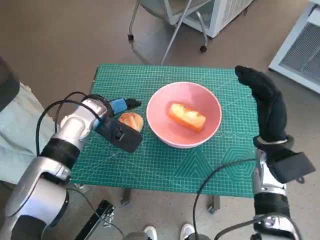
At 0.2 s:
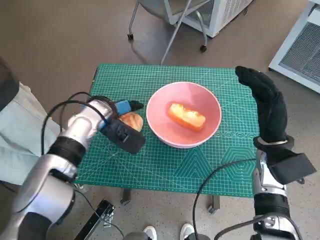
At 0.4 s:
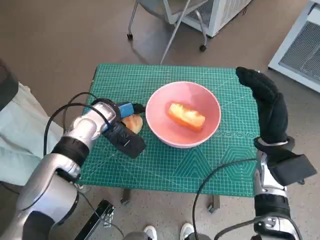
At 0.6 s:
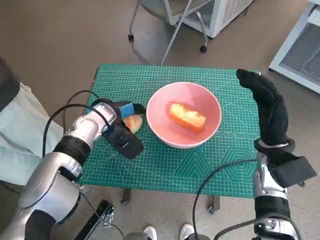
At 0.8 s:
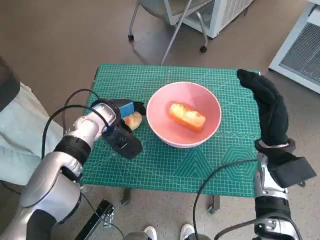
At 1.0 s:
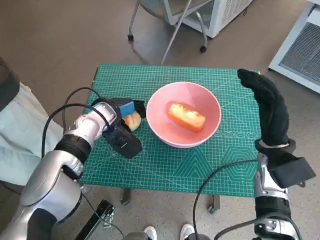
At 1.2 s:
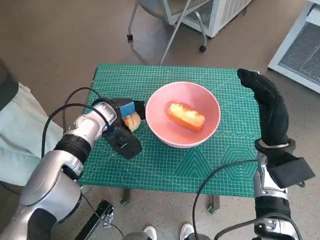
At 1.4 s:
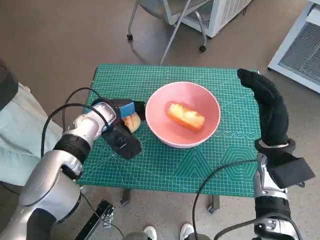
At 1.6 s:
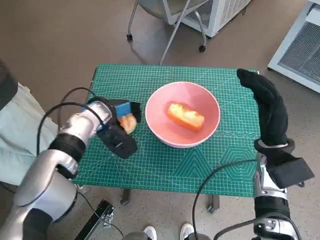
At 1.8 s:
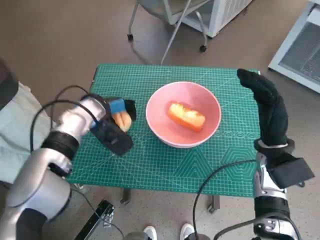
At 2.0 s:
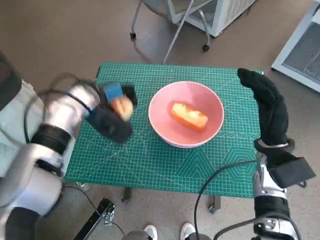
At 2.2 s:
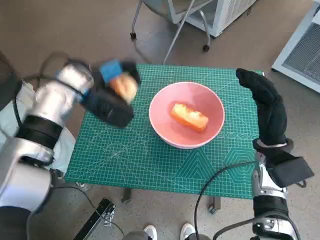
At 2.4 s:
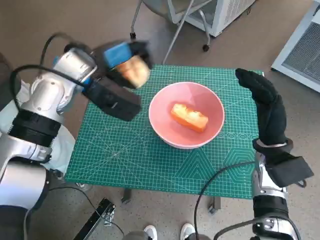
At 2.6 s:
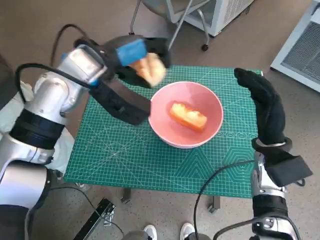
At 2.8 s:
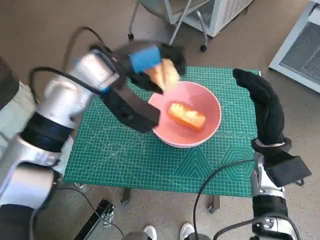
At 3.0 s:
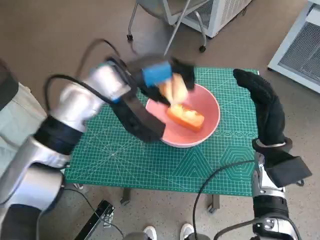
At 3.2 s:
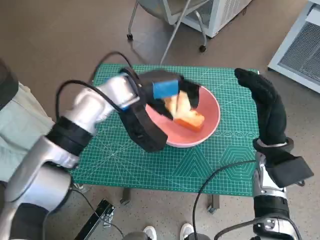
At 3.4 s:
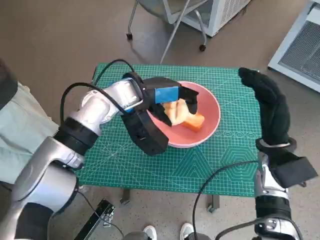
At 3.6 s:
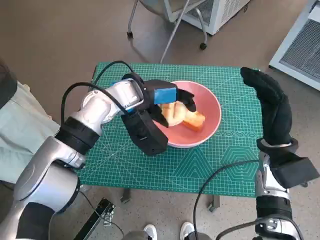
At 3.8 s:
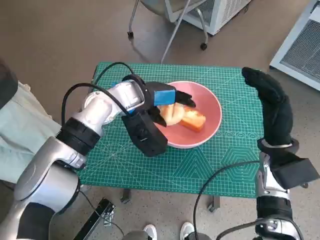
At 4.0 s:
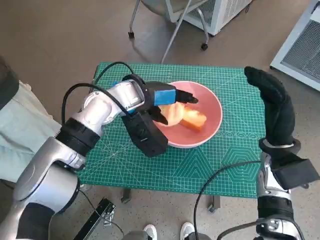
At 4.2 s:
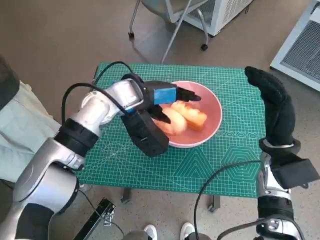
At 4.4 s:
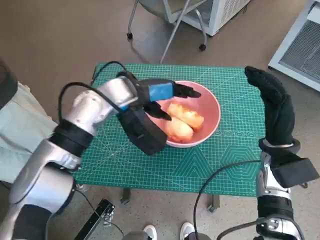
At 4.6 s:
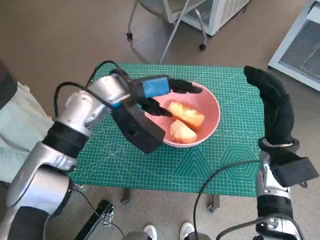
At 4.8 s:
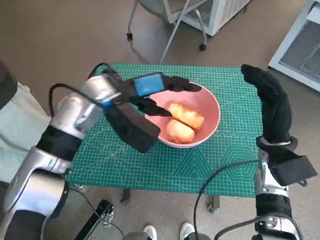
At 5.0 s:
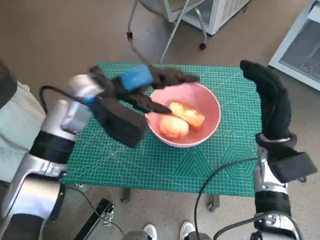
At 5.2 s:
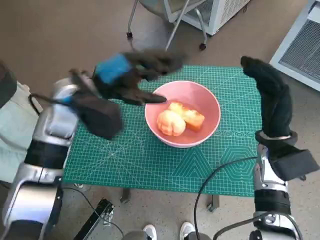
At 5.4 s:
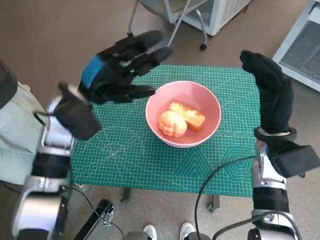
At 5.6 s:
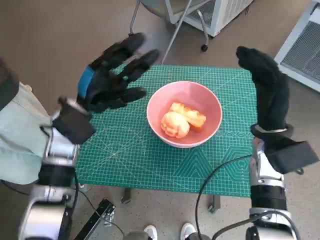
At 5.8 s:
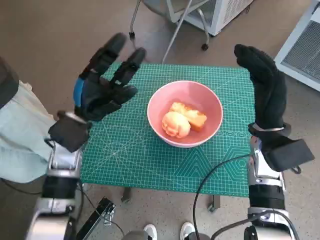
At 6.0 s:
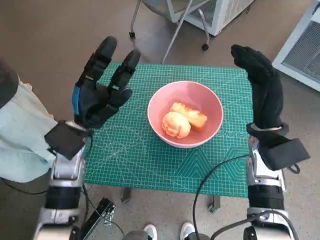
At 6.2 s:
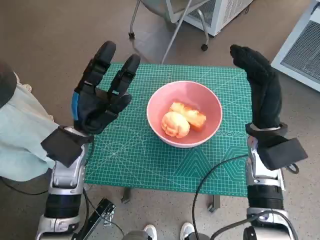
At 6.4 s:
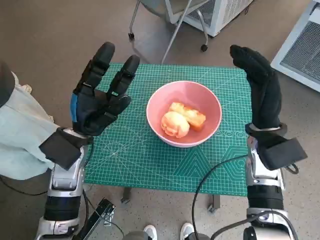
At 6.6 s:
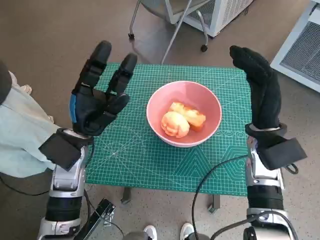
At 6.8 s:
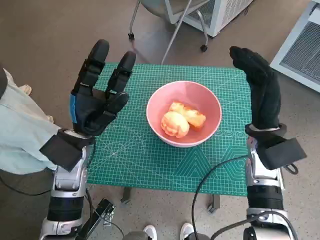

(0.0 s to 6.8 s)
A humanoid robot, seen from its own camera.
Task of the whole recording: Push the bowl to the center of the table and put the bread into the bowl.
Step, 1.2 s - 4.4 s: Place the round bread in pink bowl with left hand.
0.0 s - 1.4 s: There are only small adjustments of the hands.
1.4 s - 2.8 s: The left hand moves upward, approximately 15 cm.
2.8 s - 4.0 s: The left hand heads downward, covering about 5 cm.
4.0 s - 5.4 s: The left hand moves to the left, some 10 cm.
5.4 s - 6.8 s: The left hand heads downward and backward, covering some 10 cm.

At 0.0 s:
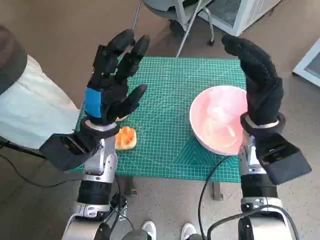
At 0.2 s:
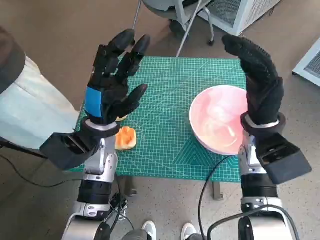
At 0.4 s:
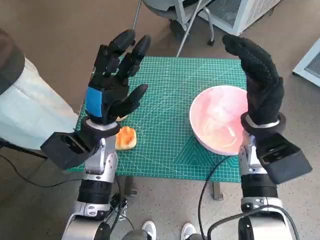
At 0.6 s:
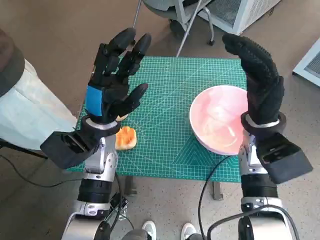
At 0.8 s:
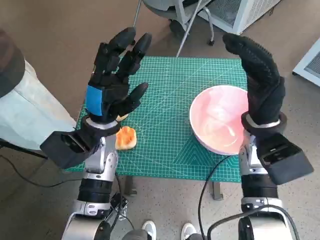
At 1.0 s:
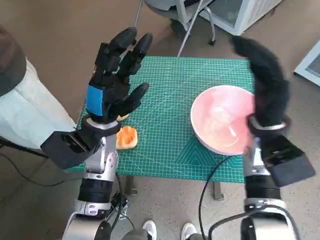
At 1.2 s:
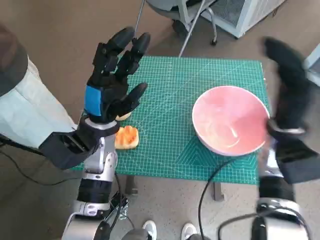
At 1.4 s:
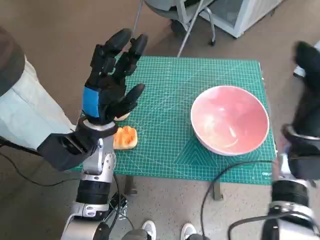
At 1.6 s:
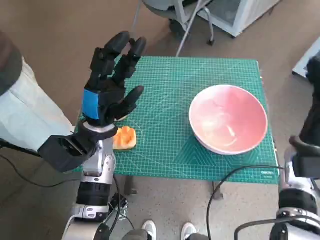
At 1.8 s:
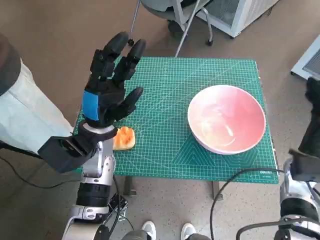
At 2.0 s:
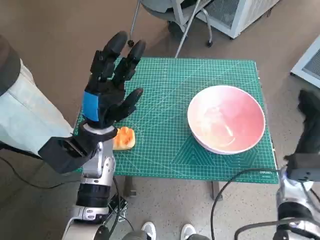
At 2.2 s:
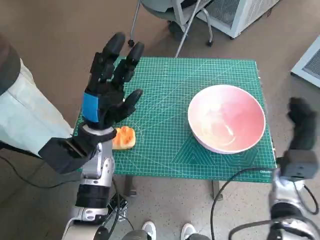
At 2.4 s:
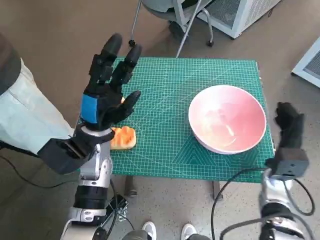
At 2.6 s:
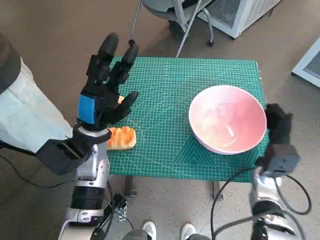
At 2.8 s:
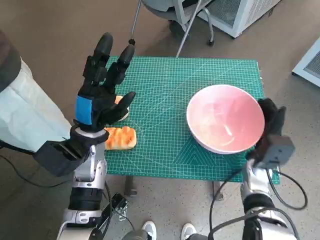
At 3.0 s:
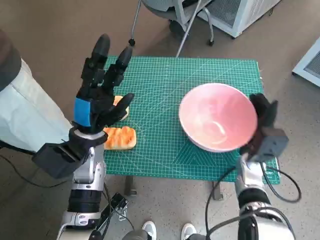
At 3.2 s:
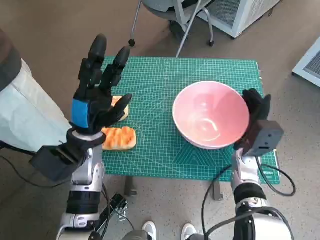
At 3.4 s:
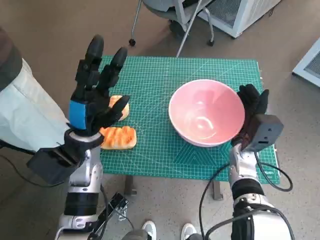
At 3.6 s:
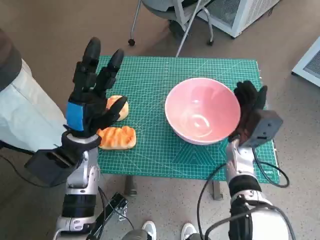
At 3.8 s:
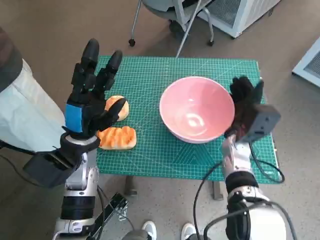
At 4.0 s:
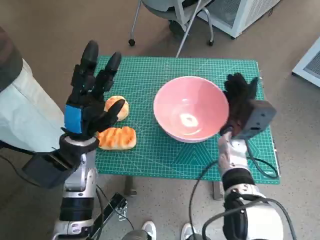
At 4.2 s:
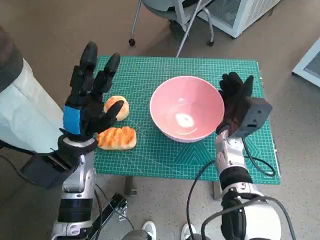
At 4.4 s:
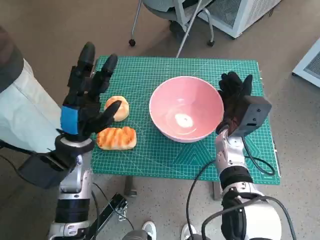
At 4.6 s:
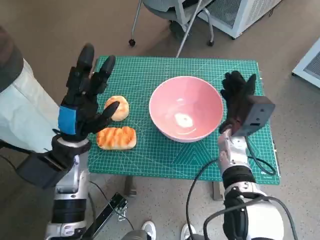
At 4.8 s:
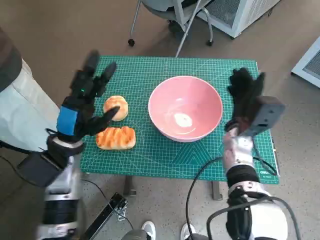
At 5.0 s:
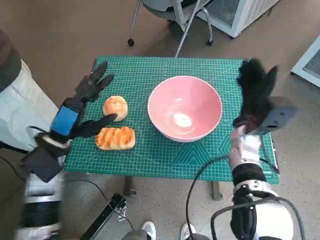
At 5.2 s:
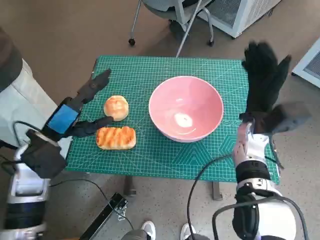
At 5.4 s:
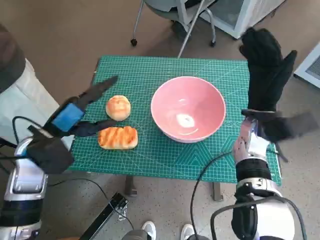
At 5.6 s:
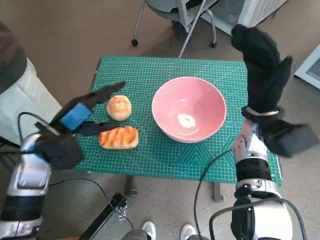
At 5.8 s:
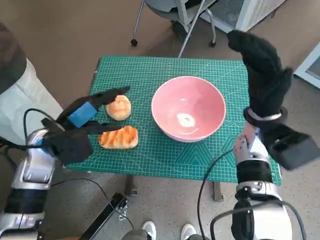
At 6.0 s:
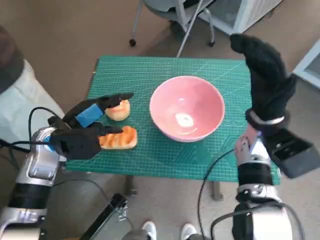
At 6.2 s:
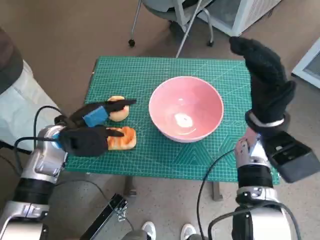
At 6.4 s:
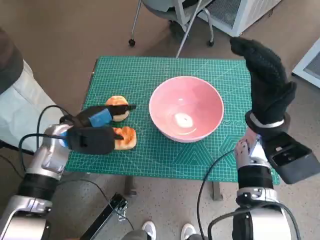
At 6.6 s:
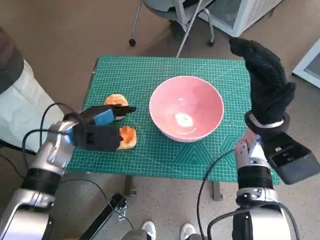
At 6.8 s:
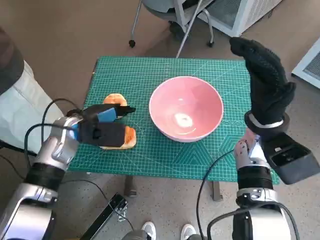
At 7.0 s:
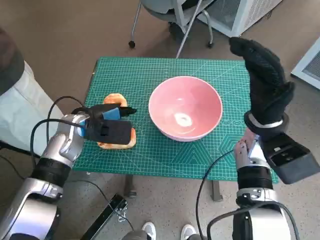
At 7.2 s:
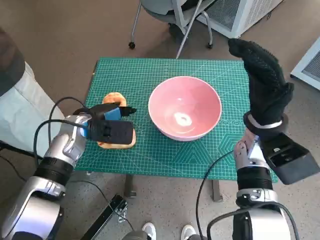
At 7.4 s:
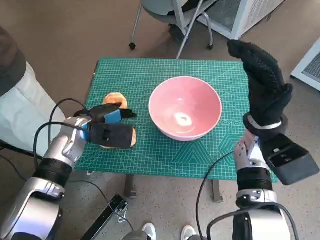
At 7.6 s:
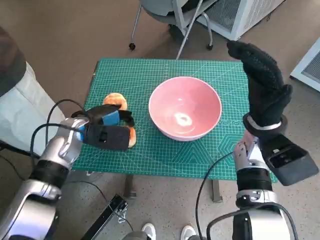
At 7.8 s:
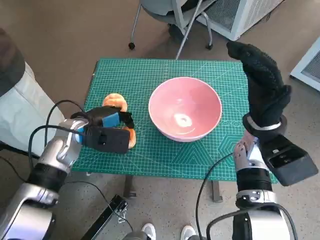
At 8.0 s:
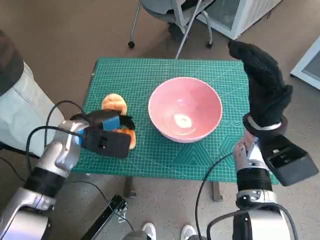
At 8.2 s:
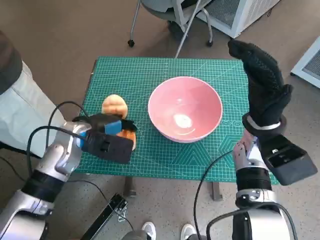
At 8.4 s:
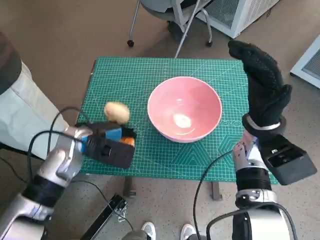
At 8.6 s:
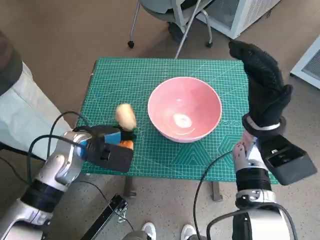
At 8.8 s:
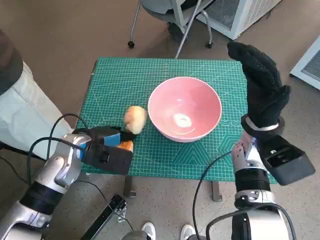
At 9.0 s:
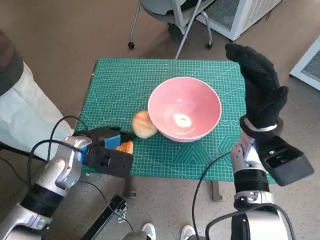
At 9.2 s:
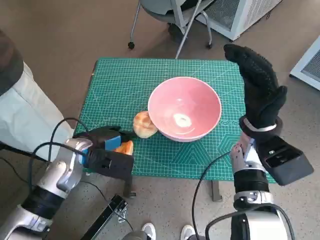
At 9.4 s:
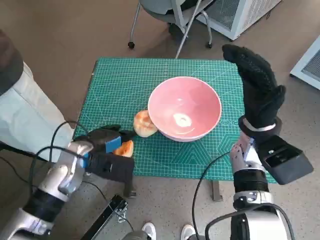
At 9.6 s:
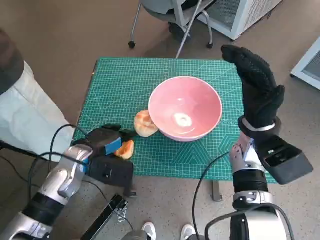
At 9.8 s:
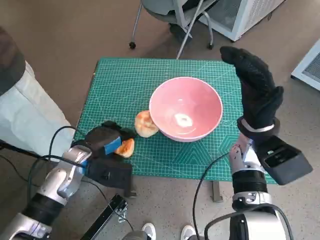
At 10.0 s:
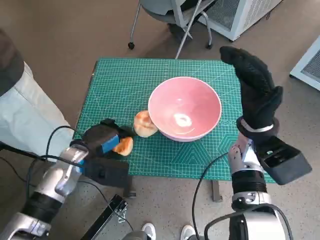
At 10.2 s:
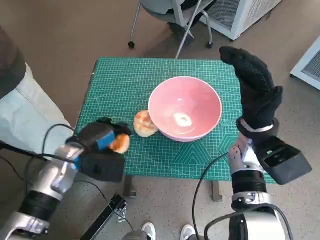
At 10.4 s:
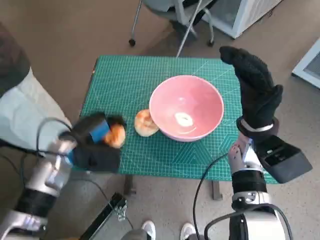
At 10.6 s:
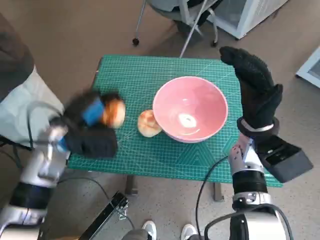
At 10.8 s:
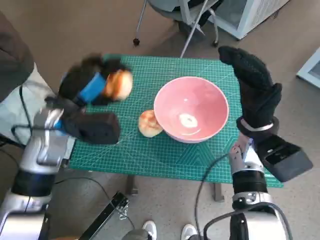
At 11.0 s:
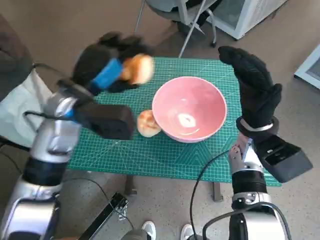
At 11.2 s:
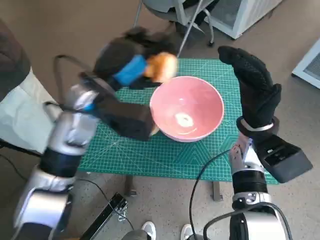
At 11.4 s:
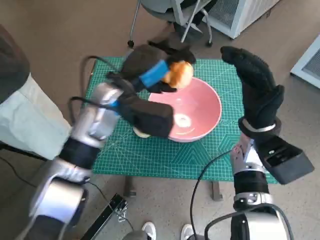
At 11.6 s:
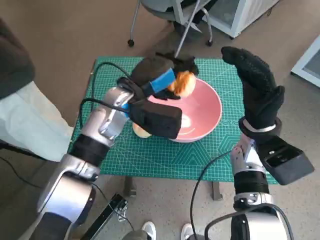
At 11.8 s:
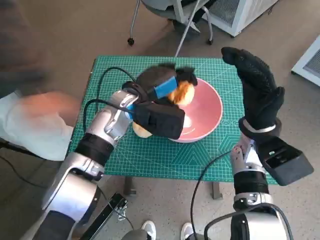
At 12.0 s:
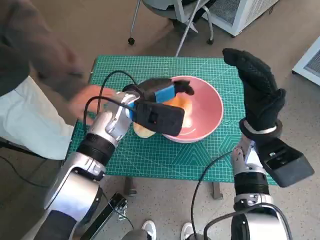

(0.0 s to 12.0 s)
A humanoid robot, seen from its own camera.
Task of the whole recording: Push the bowl to the center of the table and put the bread into the bowl.
Step, 0.0 s - 4.6 s: Move the pink bowl to the center of table with right hand.
Step, 4.8 s - 9.8 s: Grasp the long bread with left hand.
1.6 s - 3.0 s: The right hand shifts some 10 cm downward and to the left.
3.0 s - 4.4 s: The right hand is displaced to the left by about 5 cm.
4.4 s - 6.0 s: The left hand moves some 5 cm. Meanwhile the right hand travels upward by roughly 10 cm.
6.0 s - 7.6 s: The left hand changes place by roughly 5 cm.
10.4 s - 12.0 s: The left hand moves to the right, forward and upward, some 15 cm.

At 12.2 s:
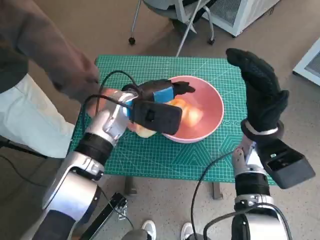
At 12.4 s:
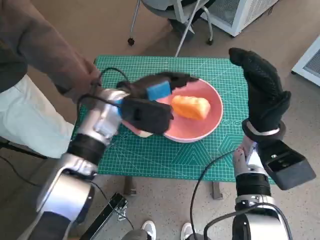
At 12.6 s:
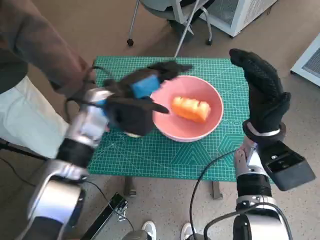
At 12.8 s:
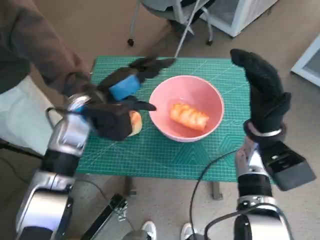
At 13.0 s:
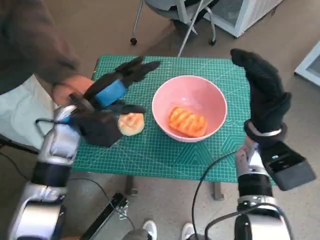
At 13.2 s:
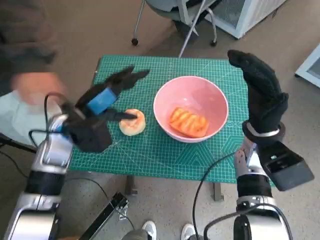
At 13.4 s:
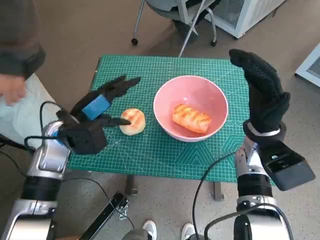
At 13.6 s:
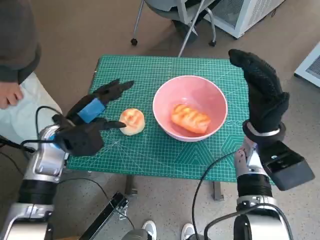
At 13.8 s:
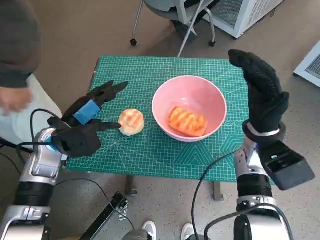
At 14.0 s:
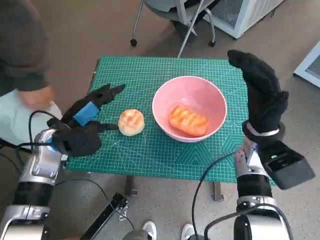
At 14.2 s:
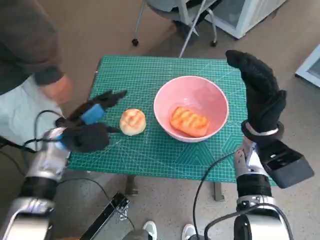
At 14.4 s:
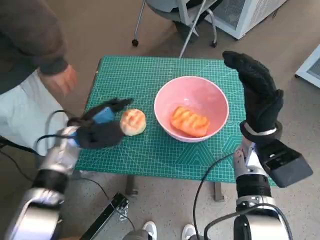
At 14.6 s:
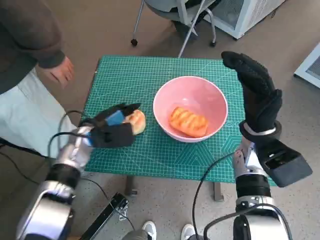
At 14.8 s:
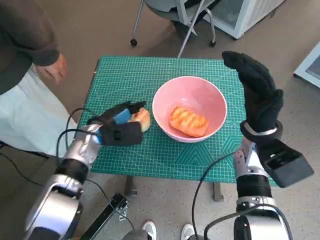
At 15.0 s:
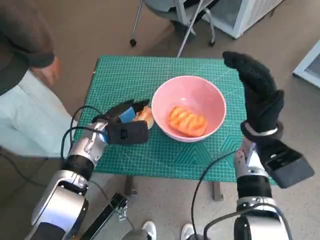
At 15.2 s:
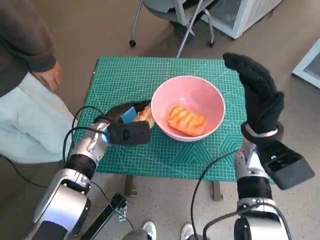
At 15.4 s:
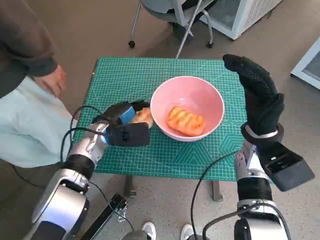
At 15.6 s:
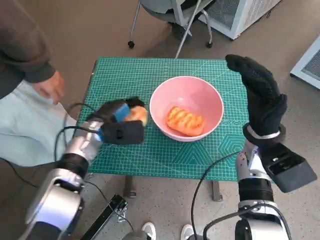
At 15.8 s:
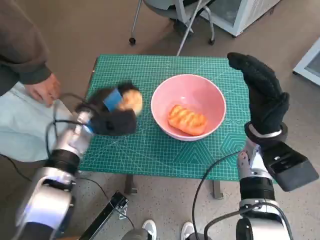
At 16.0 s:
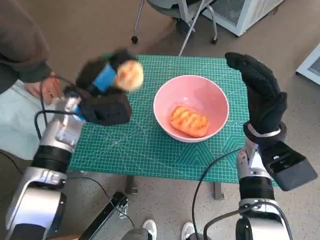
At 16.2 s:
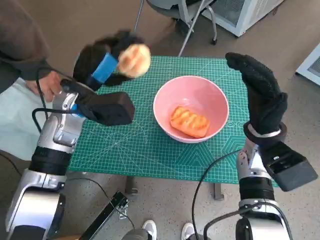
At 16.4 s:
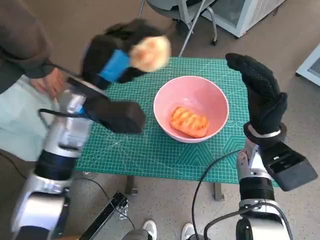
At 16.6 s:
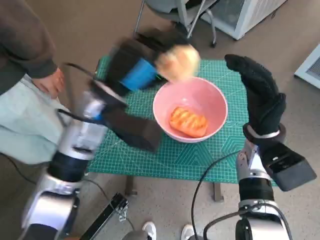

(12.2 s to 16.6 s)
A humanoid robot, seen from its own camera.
Task of the whole recording: Push the bowl to the center of the table and put the bread into the bowl.
Step, 12.4 s - 15.4 s: Grasp the round bread with left hand.
12.2 s - 13.6 s: The left hand is displaced to the left and backward by about 15 cm.
13.6 s - 15.2 s: The left hand travels downward and to the right by some 10 cm.
15.2 s - 16.6 s: The left hand heads upward, covering about 15 cm.
